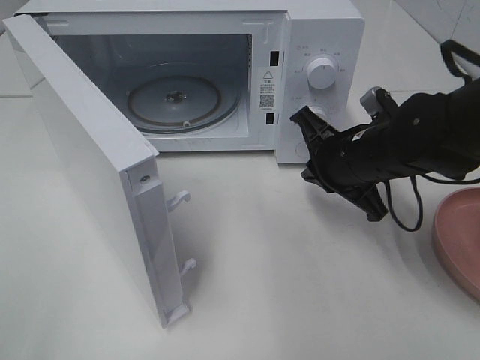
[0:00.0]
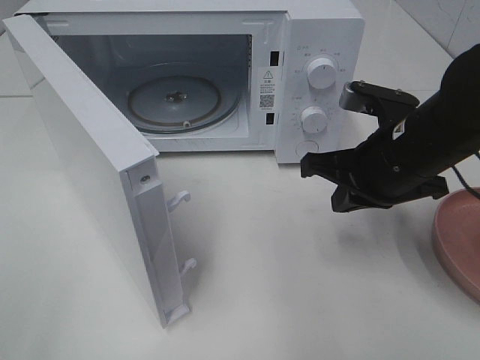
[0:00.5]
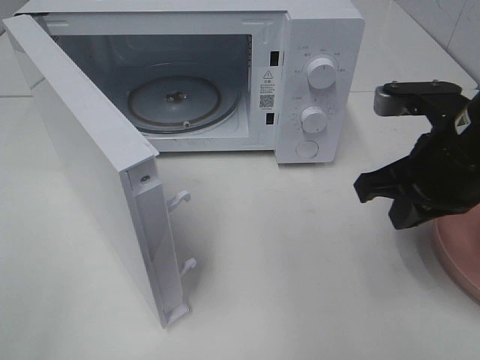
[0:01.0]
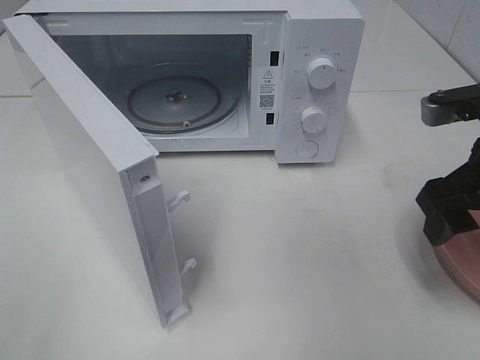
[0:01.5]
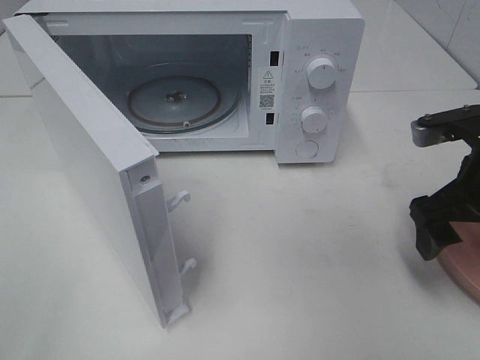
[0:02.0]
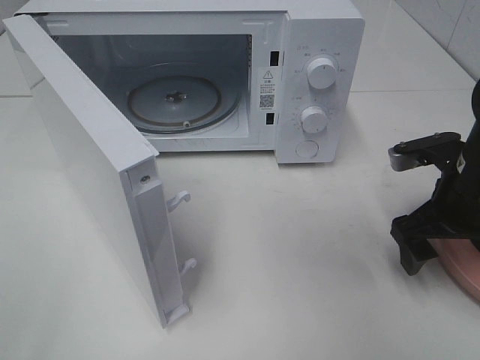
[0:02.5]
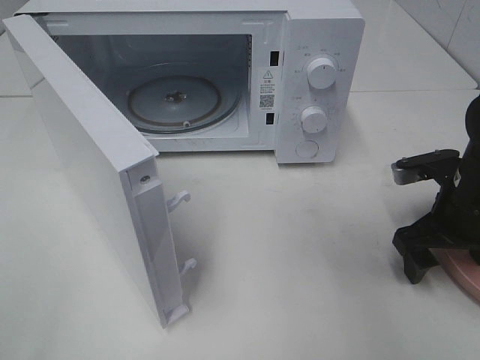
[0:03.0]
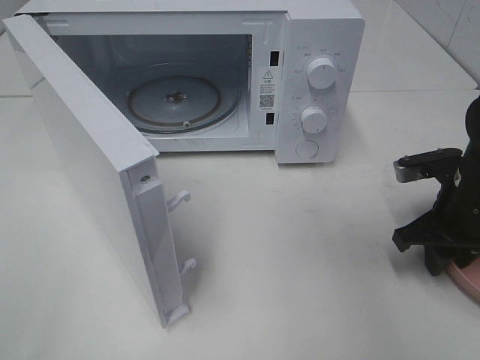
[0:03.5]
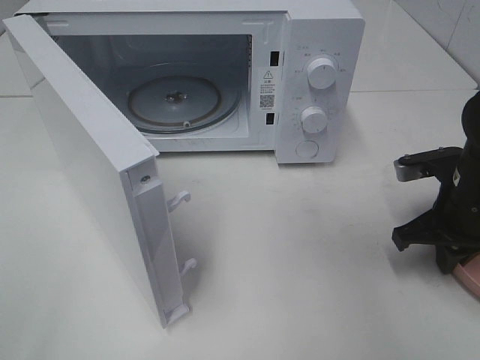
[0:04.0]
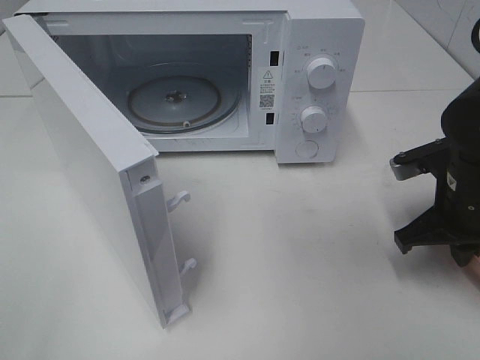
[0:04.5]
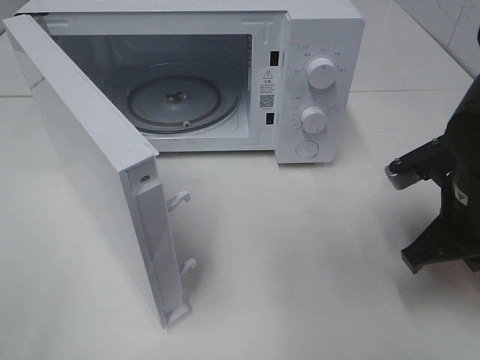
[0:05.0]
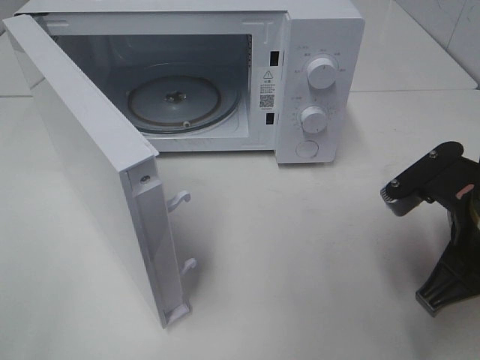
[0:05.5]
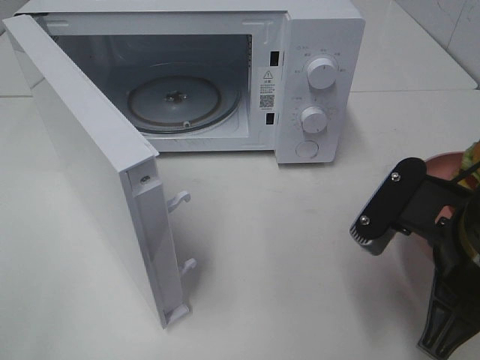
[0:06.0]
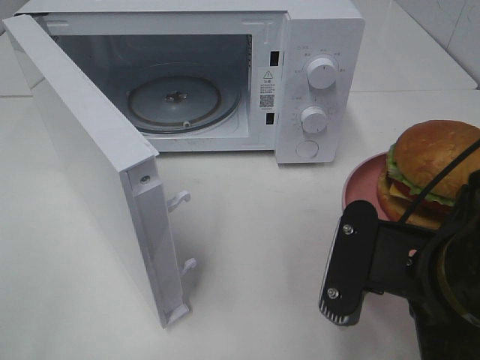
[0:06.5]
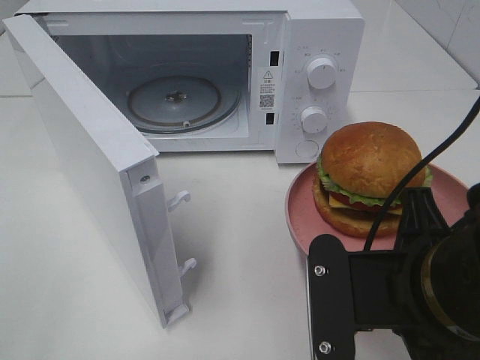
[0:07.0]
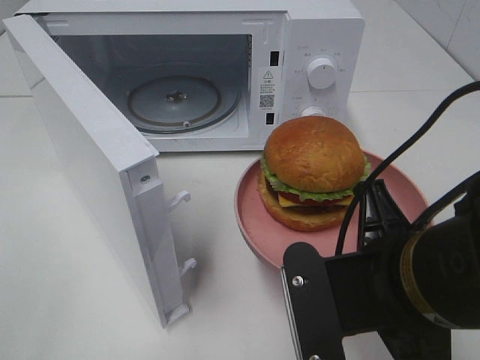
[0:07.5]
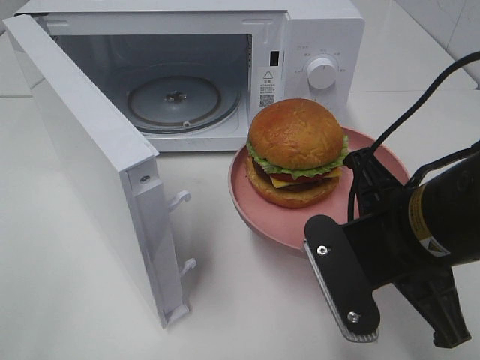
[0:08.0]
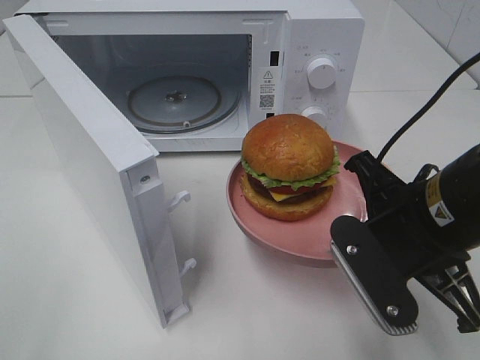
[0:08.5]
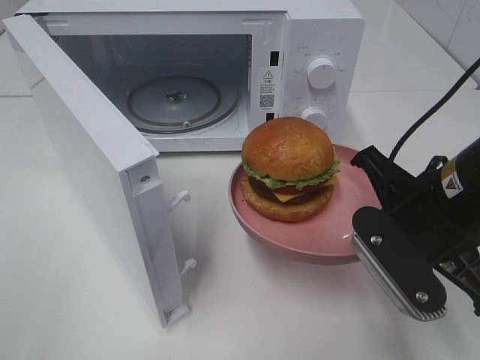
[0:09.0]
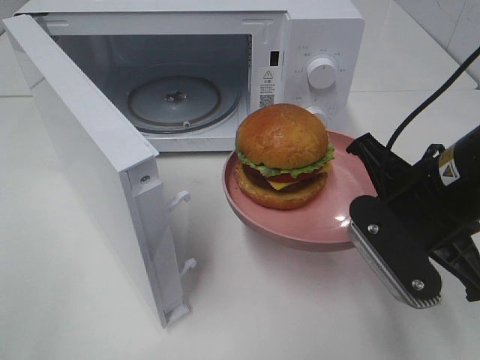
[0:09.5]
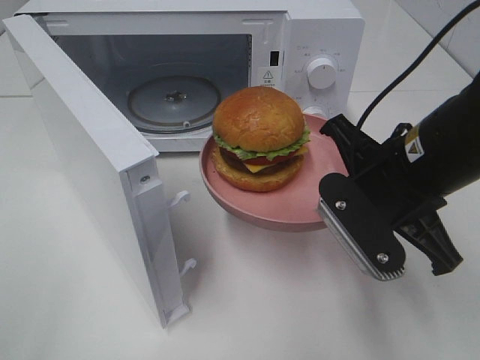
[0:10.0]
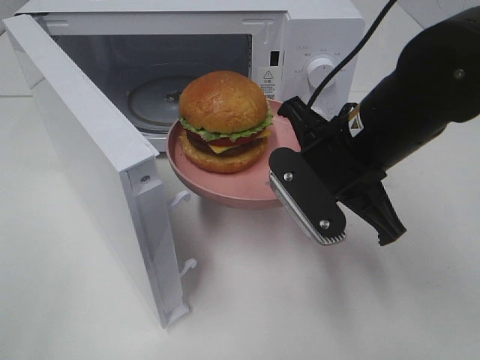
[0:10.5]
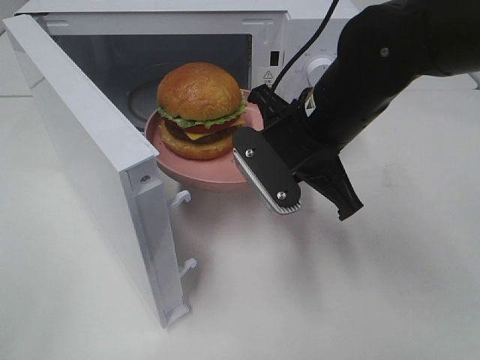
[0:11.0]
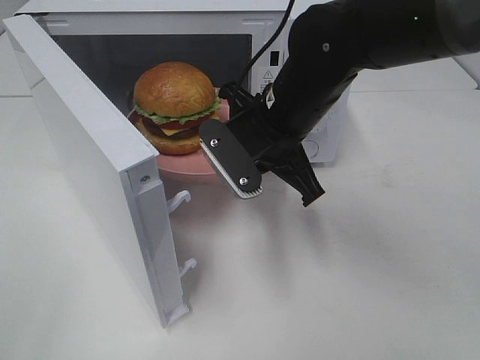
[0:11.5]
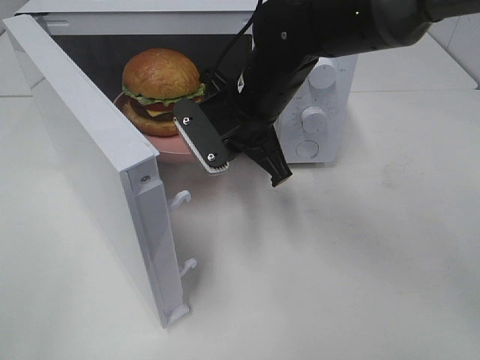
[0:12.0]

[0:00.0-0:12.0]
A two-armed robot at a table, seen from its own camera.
Task of the whole recording: Heat the burger.
Step, 0:00.0 to 0:04.0: Right hand: grab the plate with the hamburger.
0:00.0 to 0:02.0: The right gripper moves to the right and backward, some 10 cm, and opens.
0:02.0 to 0:04.0: The right gripper shifts about 5 cm downward, and closes.
0:04.0 to 0:06.0: The right gripper is displaced backward, to the left and upward by about 20 cm.
0:08.0 to 0:10.0: The right gripper heads forward, covering some 5 cm.
0:10.0 to 0:12.0: The right gripper goes approximately 20 cm forward and to the left.

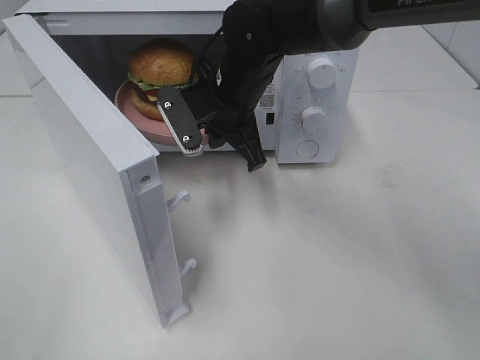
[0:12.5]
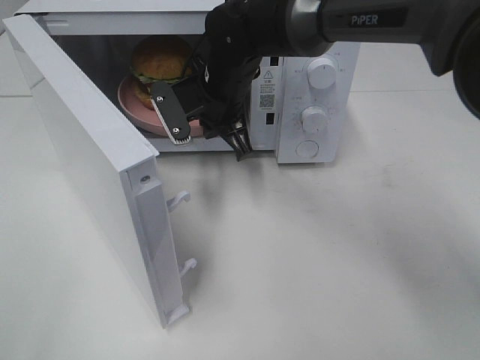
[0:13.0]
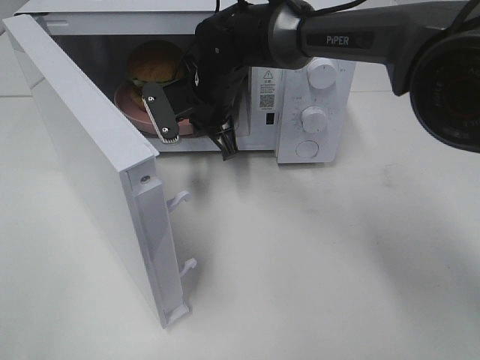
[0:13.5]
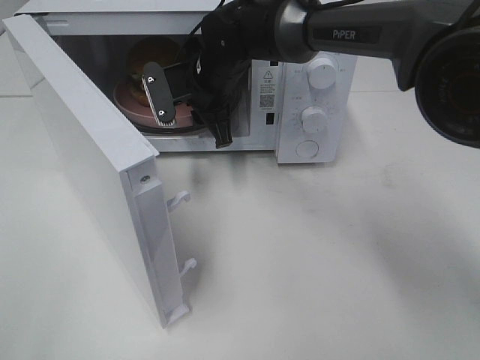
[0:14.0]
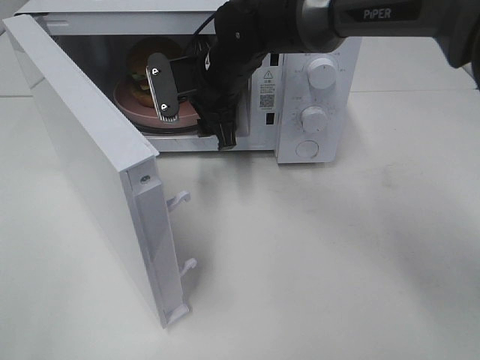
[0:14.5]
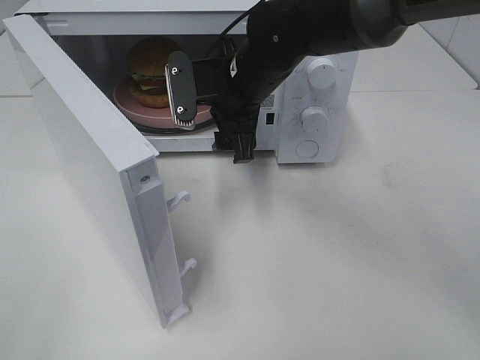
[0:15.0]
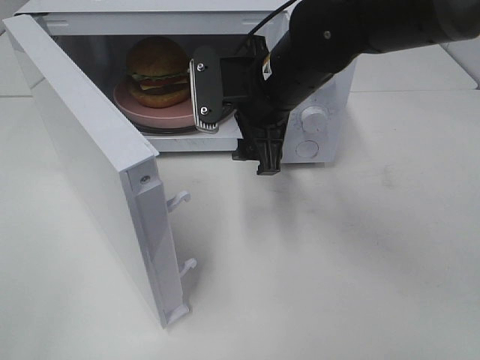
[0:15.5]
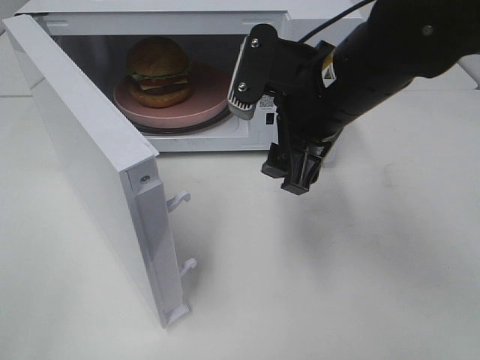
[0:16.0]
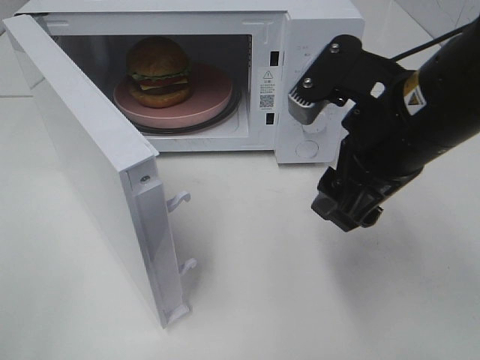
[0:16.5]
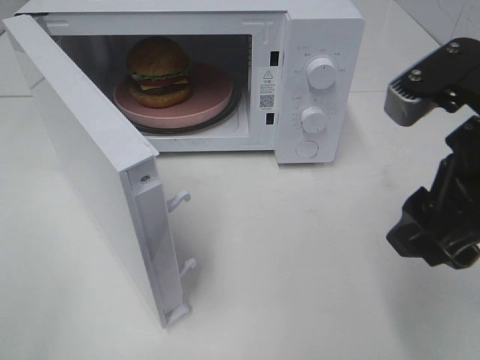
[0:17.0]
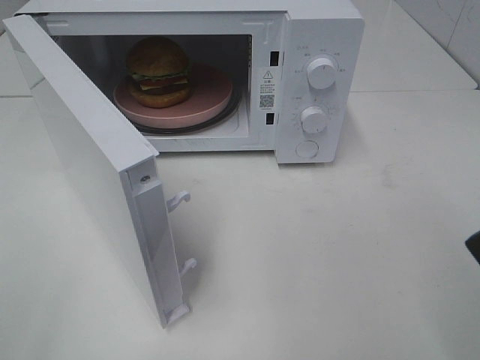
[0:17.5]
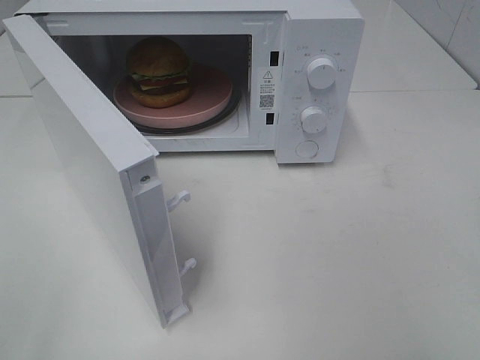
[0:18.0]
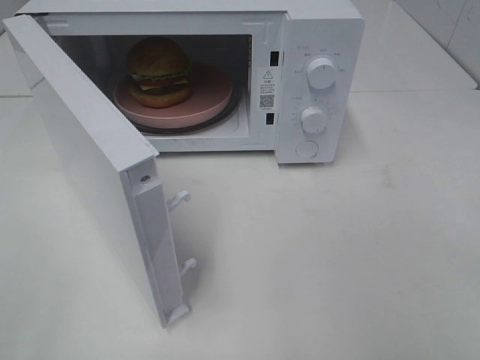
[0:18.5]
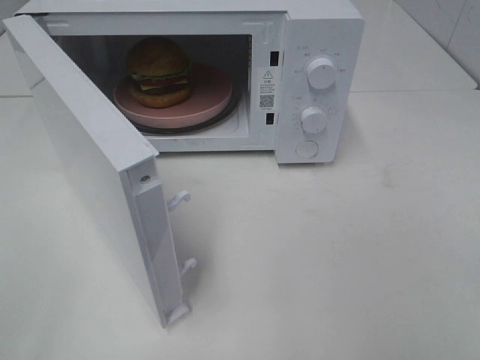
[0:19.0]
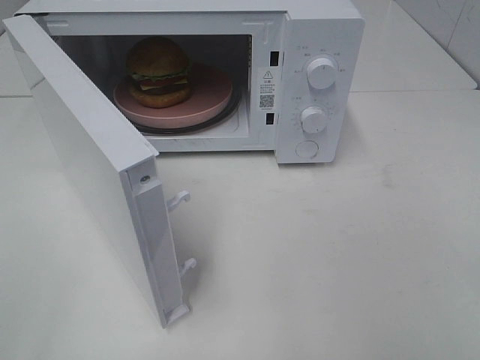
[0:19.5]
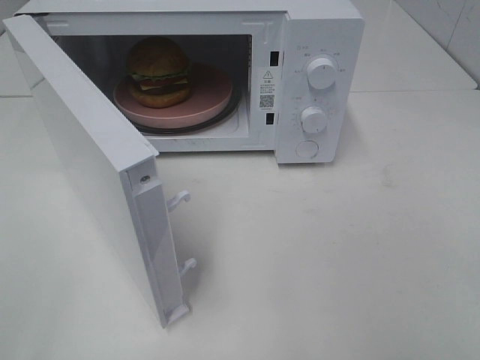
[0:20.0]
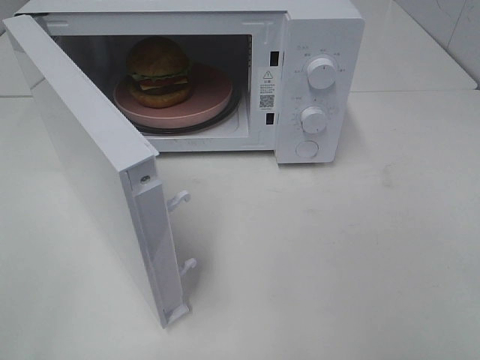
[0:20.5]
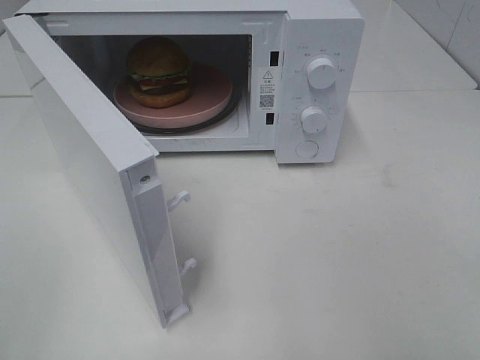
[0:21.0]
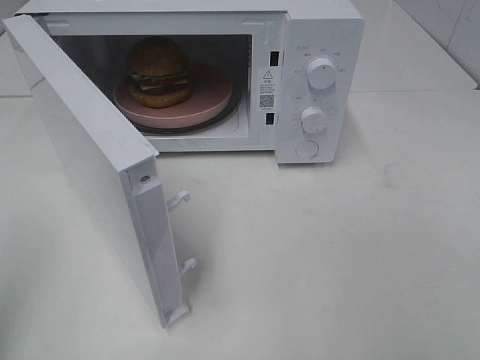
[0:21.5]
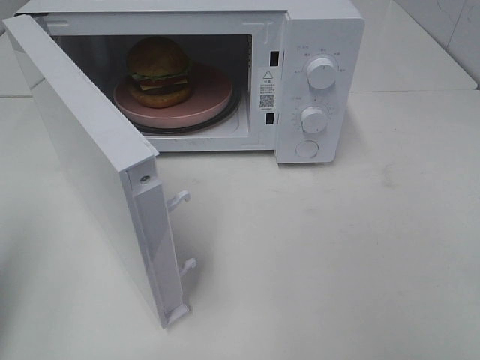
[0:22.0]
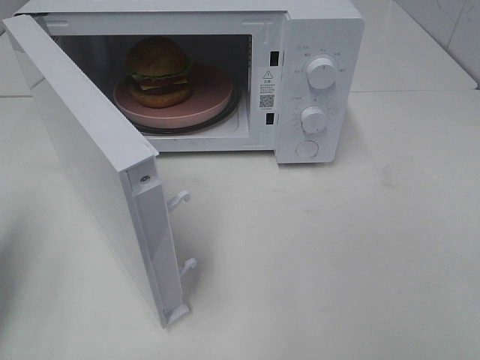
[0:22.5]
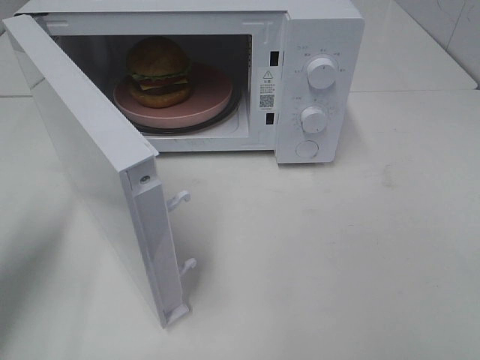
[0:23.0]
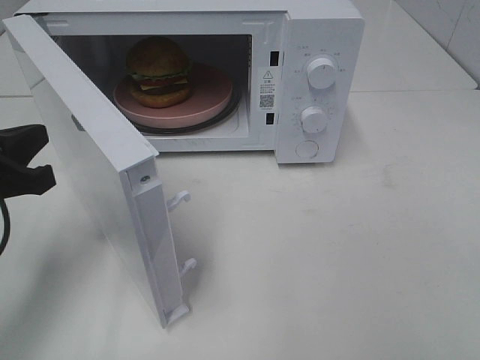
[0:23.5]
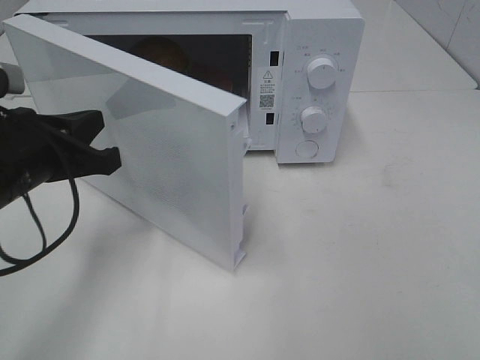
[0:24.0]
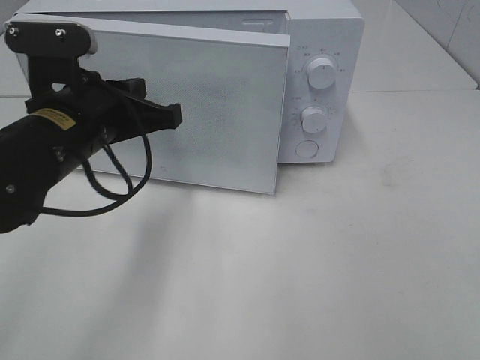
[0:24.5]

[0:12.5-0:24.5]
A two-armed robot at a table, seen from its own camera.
Task of the whole recording: Heat the burger.
0:12.5 to 0:14.5: The right gripper opens up.
0:14.5 to 0:16.5: The right gripper heads backward and to the right, covering approximately 25 cm.
0:16.5 to 0:18.5: The right gripper is displaced backward and to the right by roughly 25 cm.
0:20.5 to 0:22.5: The left gripper is displaced forward by some 20 cm, and closes.
0:22.5 to 0:24.5: The left gripper is displaced to the right and forward by some 20 cm.

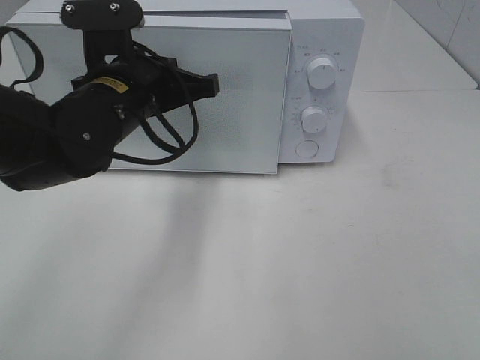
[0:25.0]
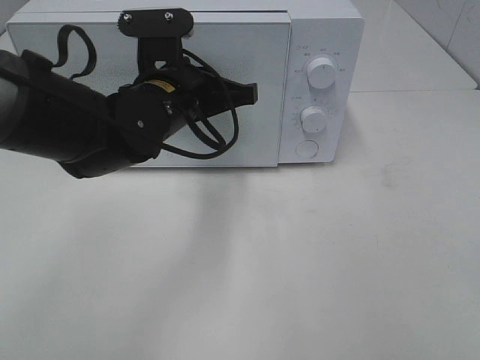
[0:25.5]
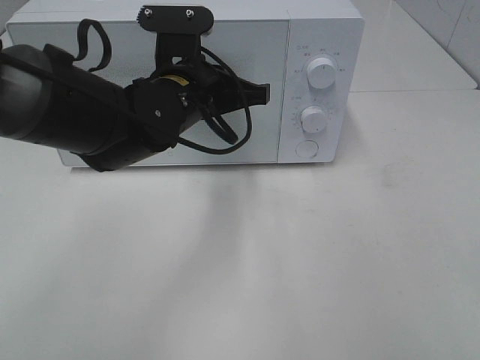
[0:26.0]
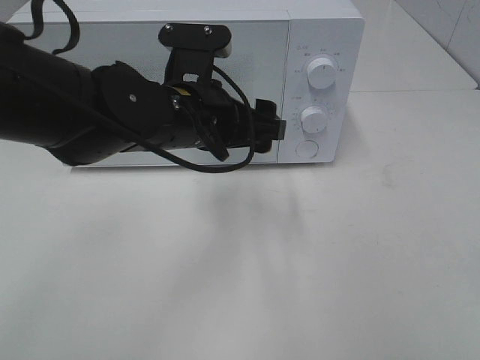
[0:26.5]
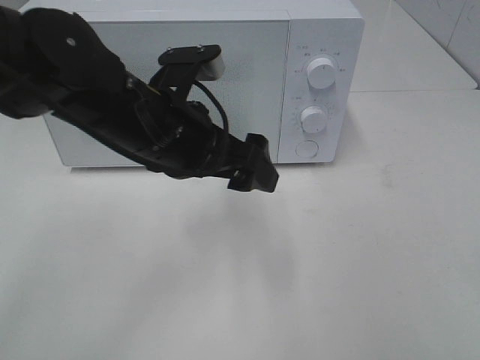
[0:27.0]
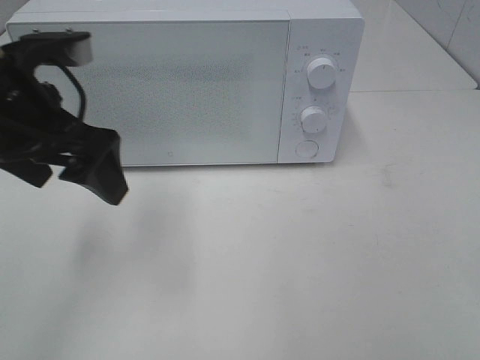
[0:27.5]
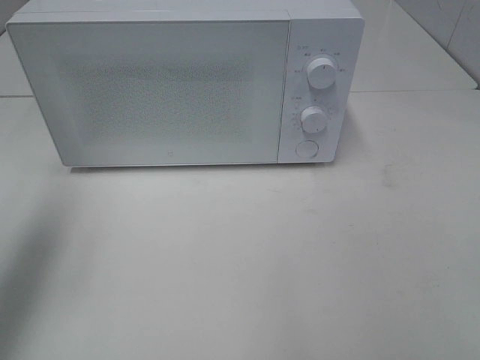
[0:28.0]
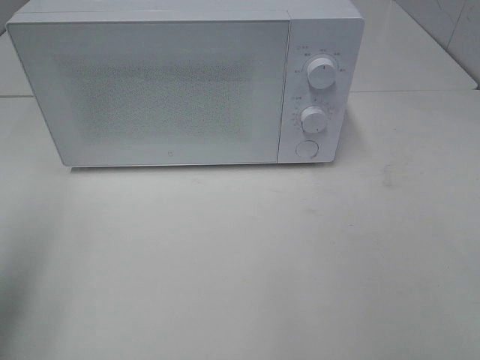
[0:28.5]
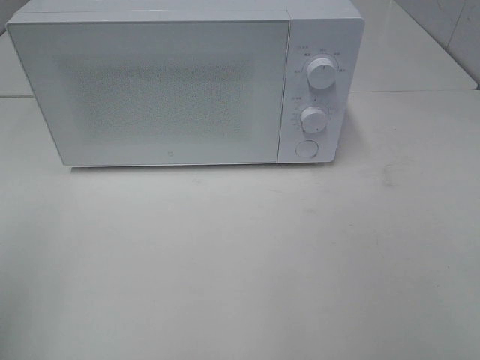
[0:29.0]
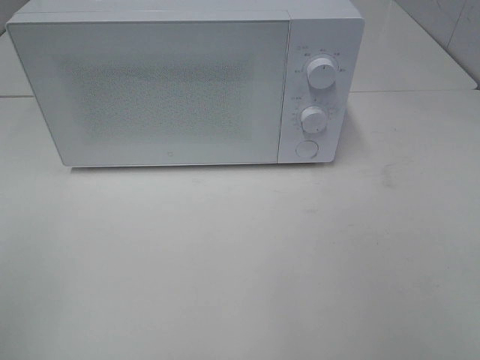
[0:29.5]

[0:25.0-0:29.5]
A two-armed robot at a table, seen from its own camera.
Task of the whole recording: Heat the burger.
0:25.0 to 0:27.0: The left gripper shifts by some 5 cm, and opens up.
0:27.0 to 0:29.5: The left gripper moves to the left and backward, approximately 35 cm.
